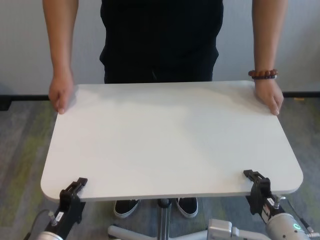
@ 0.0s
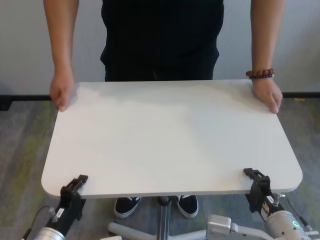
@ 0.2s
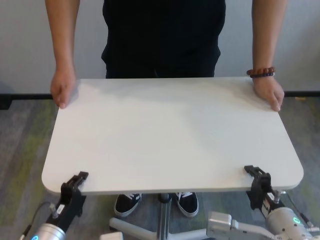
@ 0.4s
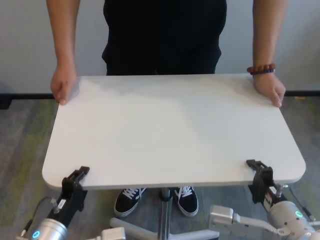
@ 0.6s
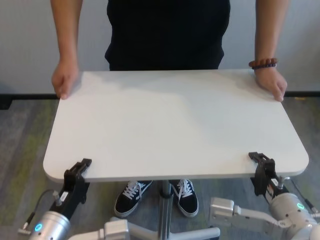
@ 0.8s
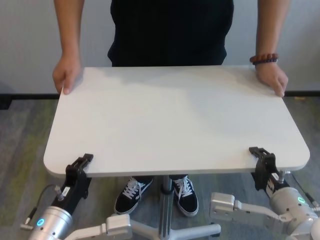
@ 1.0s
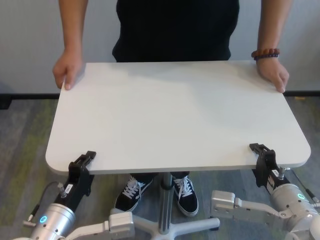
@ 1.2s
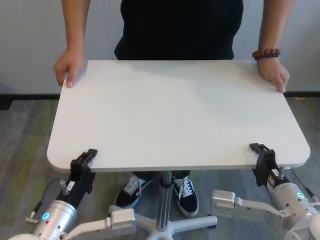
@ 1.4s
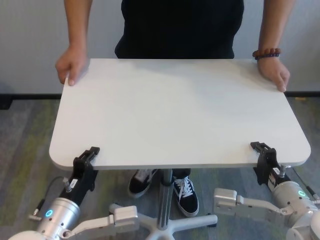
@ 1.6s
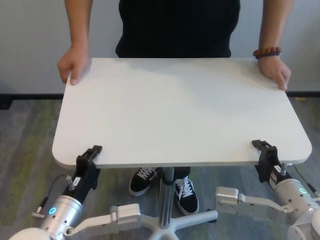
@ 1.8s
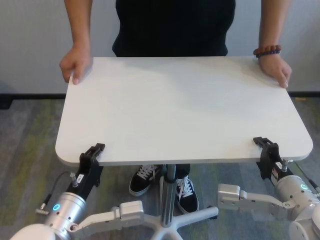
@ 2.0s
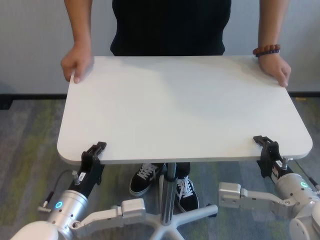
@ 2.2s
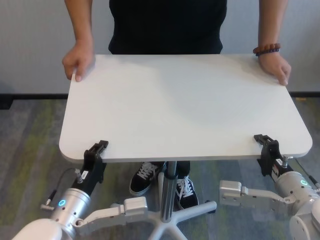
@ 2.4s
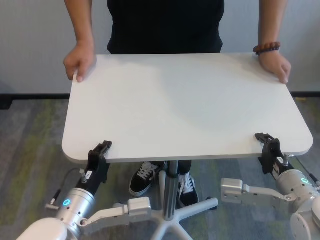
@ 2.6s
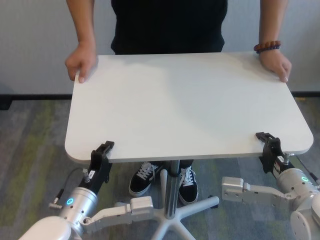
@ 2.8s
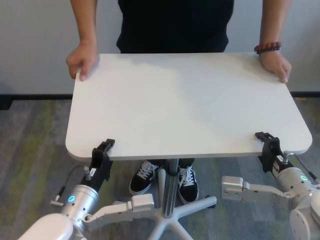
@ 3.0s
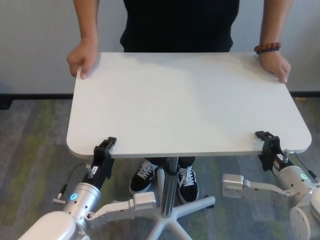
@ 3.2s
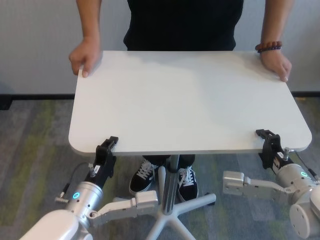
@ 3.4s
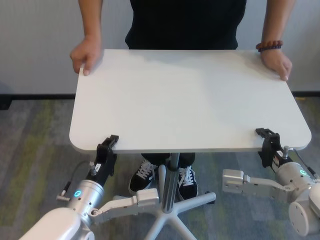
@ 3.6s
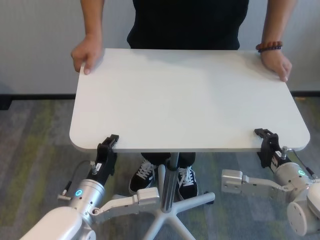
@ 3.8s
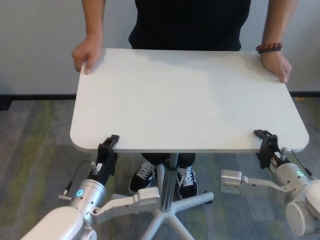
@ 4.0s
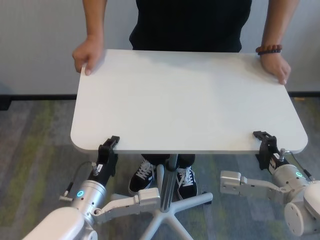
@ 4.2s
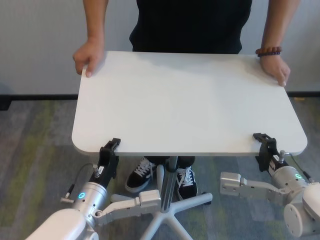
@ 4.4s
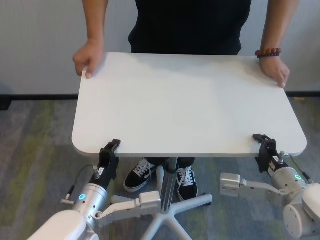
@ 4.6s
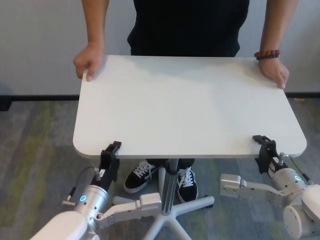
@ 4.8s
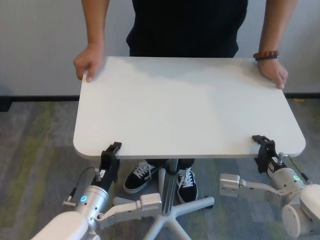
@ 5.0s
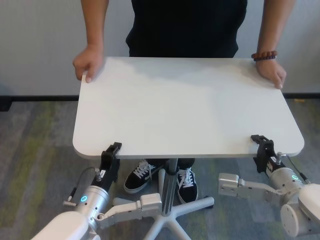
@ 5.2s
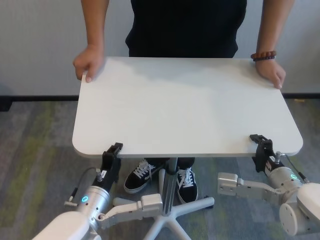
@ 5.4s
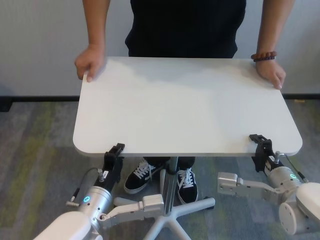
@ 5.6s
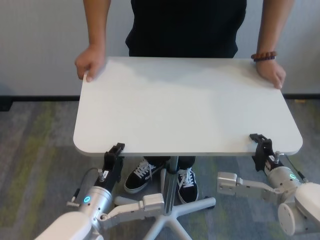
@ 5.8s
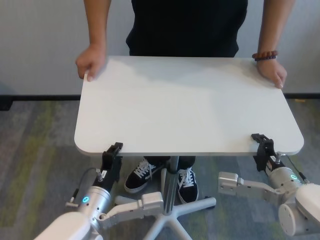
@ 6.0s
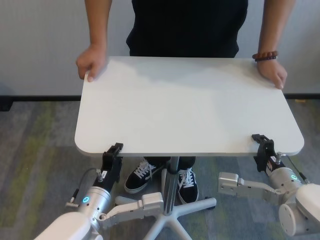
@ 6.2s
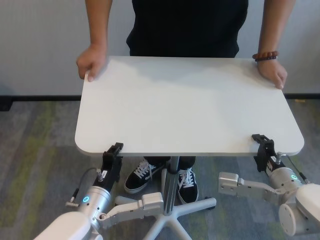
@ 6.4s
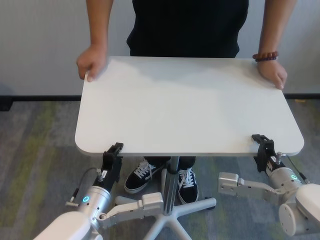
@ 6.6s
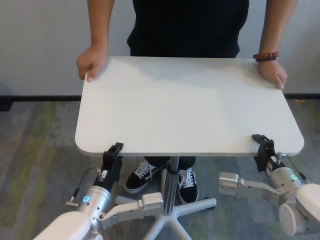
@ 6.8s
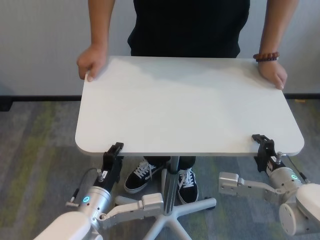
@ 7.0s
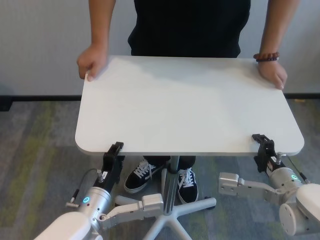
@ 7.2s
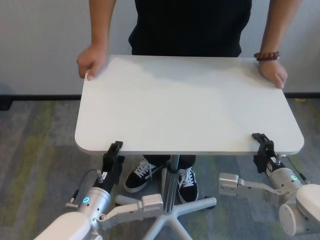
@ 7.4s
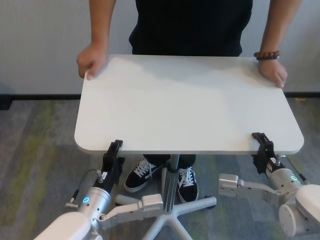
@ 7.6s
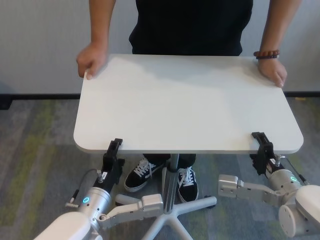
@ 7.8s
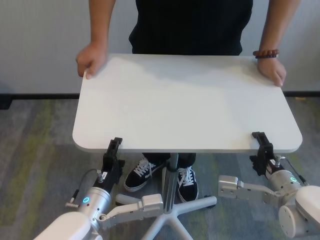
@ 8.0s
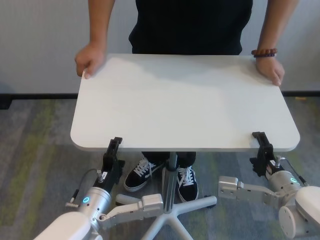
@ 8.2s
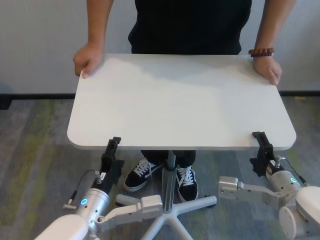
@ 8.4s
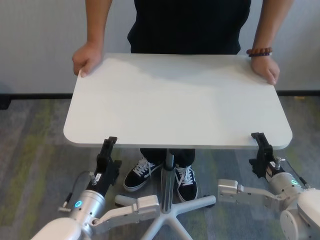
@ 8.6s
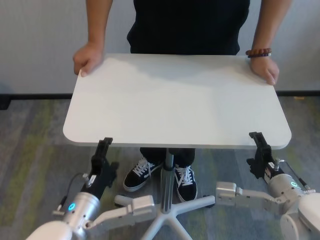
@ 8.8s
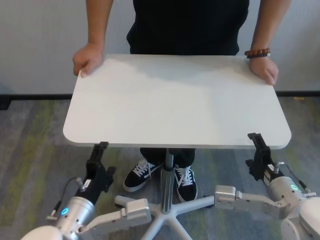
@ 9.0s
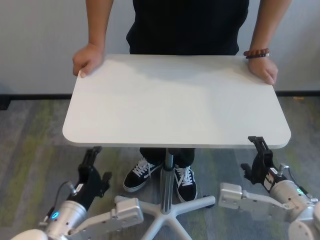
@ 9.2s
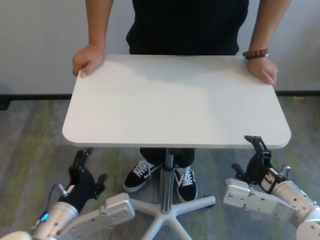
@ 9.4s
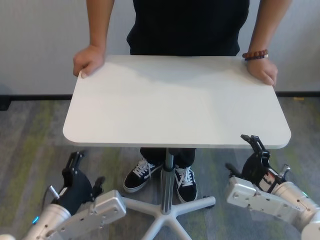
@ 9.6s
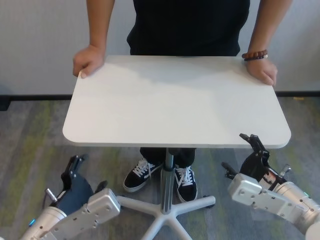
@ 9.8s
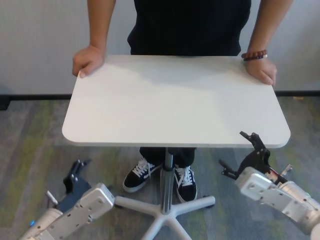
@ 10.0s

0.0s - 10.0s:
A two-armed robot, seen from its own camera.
Task of the whole recording: human machine collaborative table moving.
Step, 0.0s - 8.2s: Move the table forward with both grippers.
